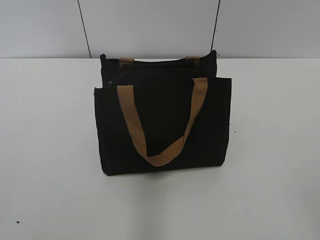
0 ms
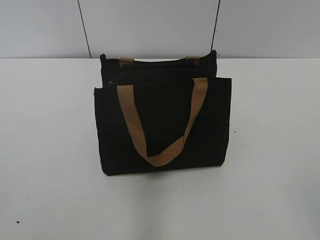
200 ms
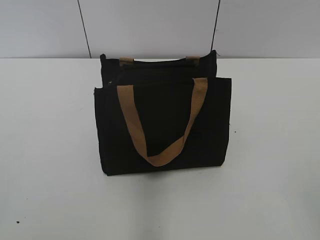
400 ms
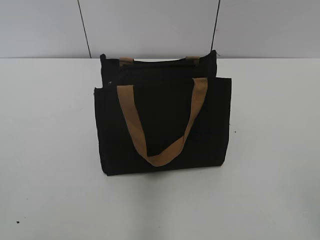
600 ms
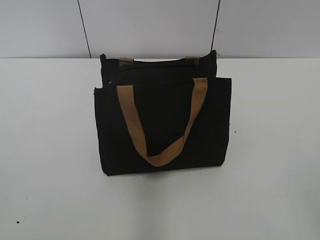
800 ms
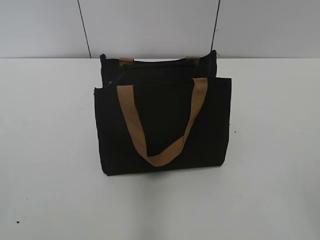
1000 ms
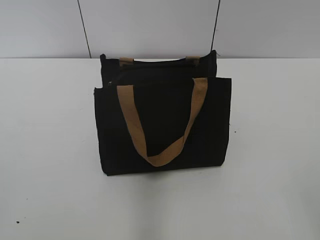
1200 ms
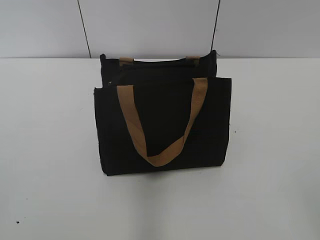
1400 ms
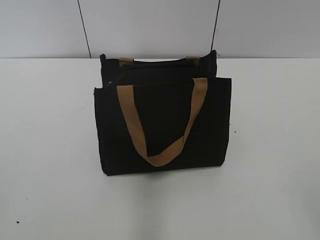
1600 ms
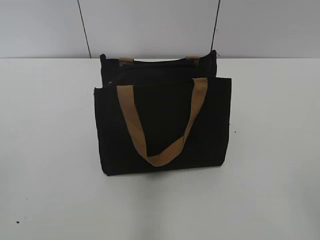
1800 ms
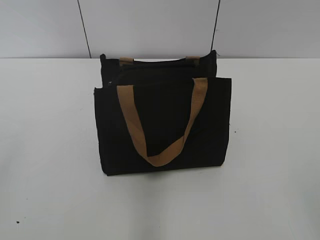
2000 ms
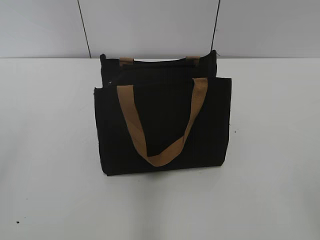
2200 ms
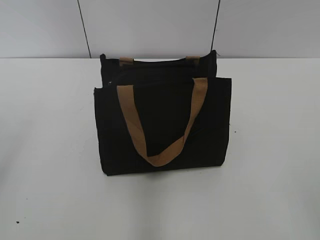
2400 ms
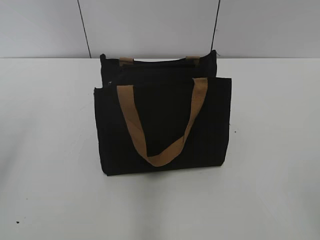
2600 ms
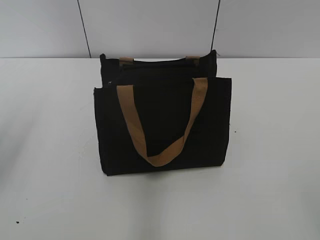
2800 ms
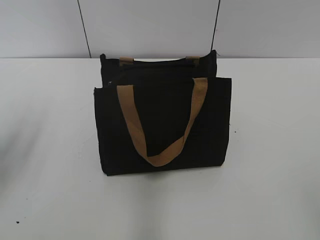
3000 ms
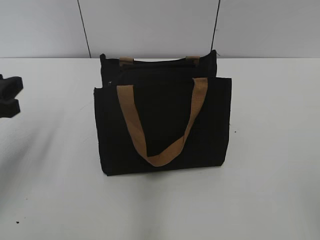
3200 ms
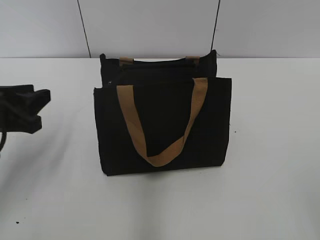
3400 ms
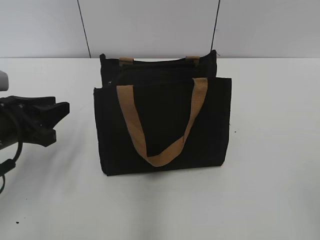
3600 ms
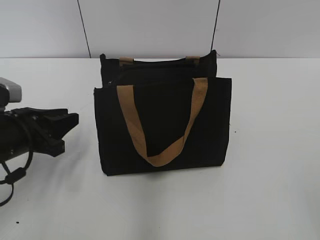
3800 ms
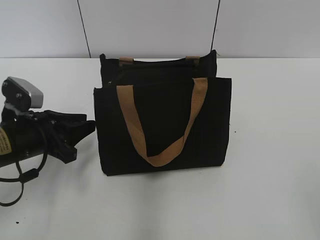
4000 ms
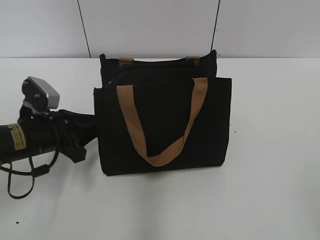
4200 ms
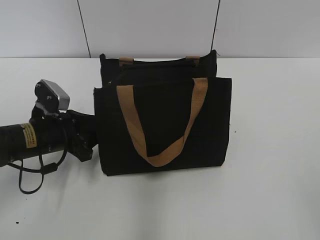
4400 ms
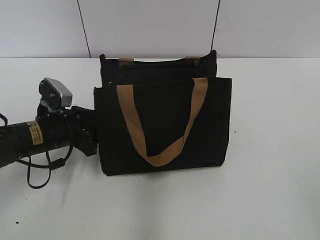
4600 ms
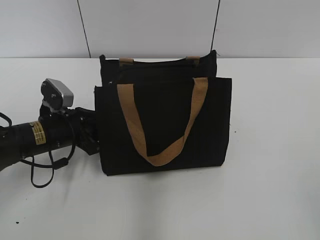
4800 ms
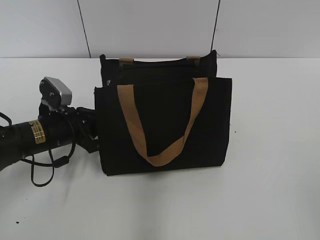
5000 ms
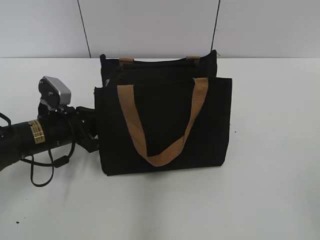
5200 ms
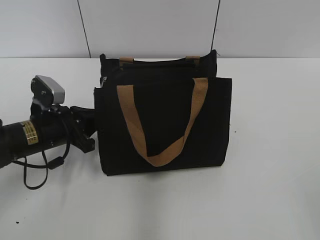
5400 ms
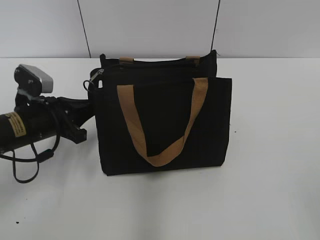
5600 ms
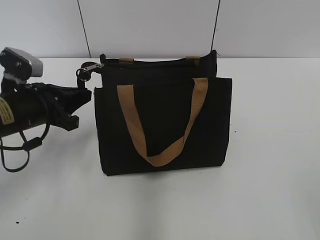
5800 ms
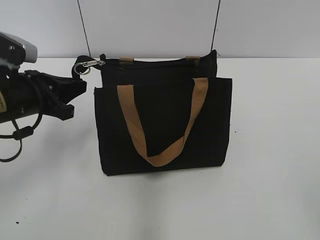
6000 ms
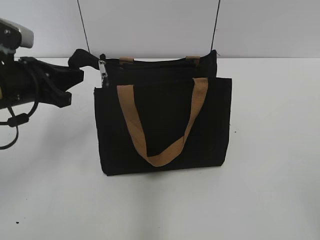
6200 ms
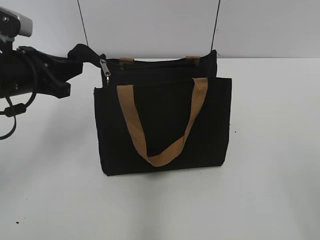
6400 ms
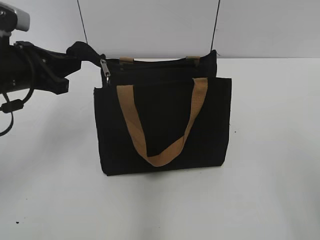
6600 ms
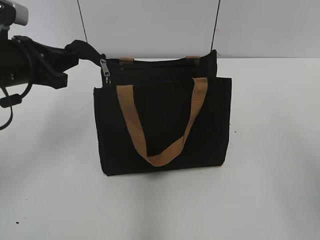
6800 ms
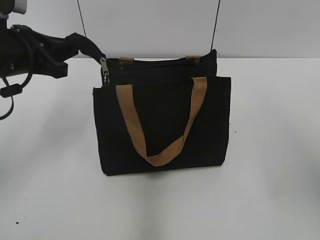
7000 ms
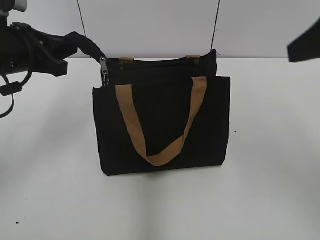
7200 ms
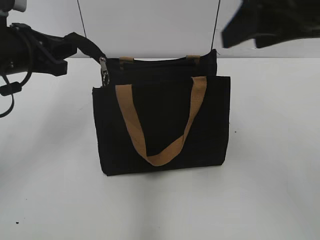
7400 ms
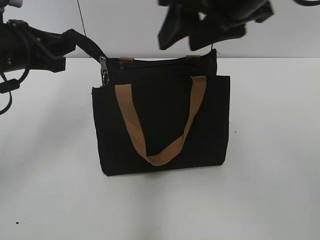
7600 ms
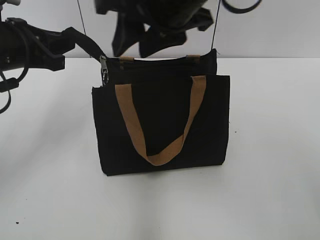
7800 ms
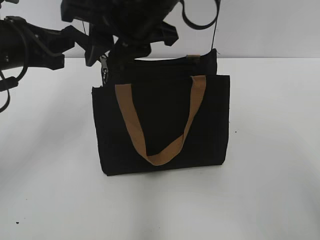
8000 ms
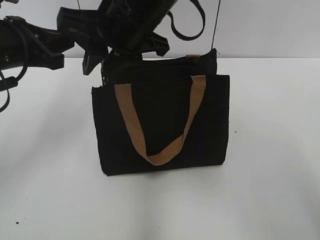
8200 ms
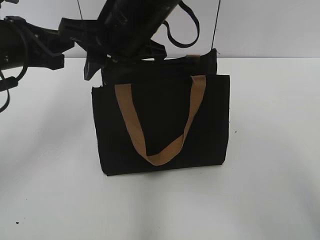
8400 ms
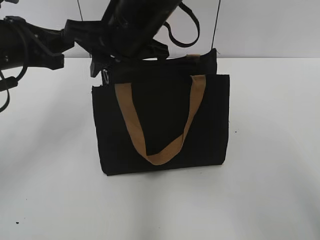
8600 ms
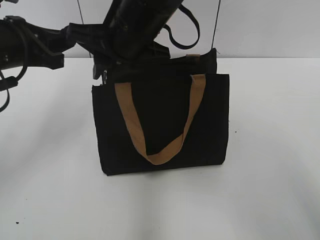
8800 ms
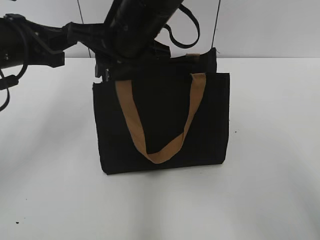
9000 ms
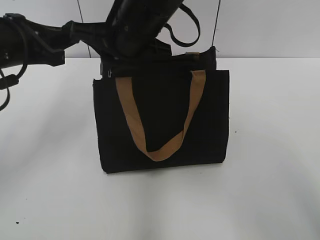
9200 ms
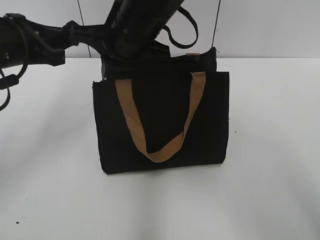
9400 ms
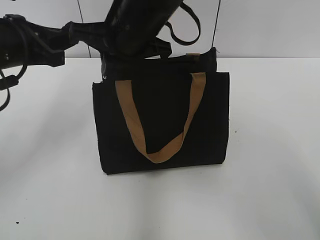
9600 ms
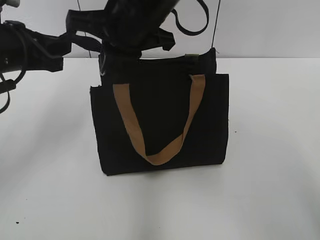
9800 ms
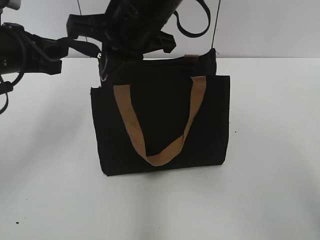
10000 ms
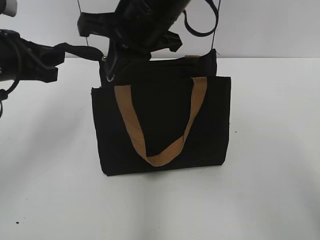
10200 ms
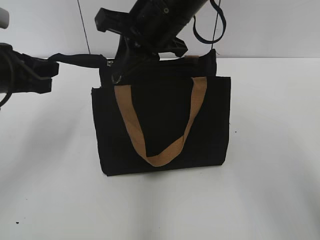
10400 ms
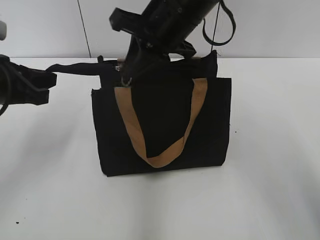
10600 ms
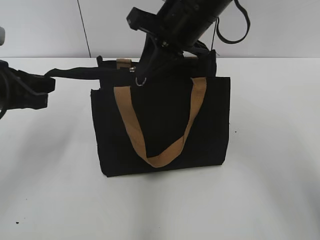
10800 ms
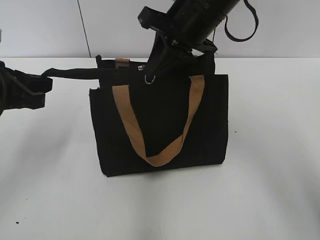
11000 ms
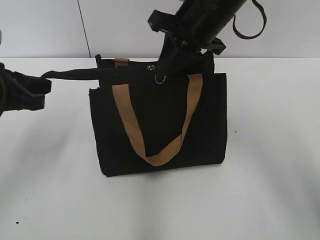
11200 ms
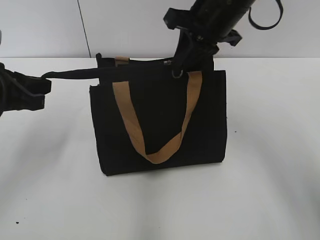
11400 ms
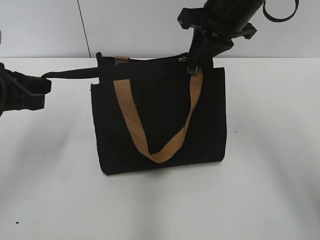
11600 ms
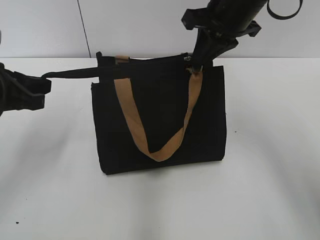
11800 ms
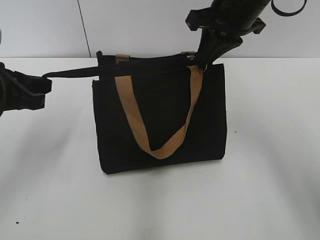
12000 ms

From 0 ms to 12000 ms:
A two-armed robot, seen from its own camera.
From 1600 ms to 3000 ms: The left gripper travels forward by about 20 cm, and opens, then closes again.
From 3000 ms to 4400 ms: The left gripper goes roughly 20 cm downward, to the right and forward.
From 4400 ms to 6000 ms: The left gripper travels upward by some 10 cm, and closes.
From 6000 ms to 7600 ms: The left gripper is displaced upward by about 5 cm, while the right gripper travels forward and to the left by approximately 35 cm.
From 7600 ms to 9000 ms: The right gripper is displaced to the left, downward and forward by roughly 15 cm.
From 9000 ms to 10400 ms: The right gripper closes its fingers.
From 10400 ms to 12000 ms: The right gripper is displaced to the right by roughly 10 cm.

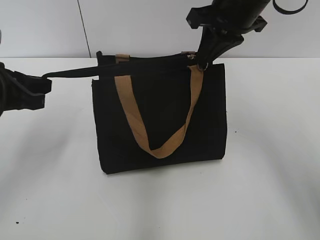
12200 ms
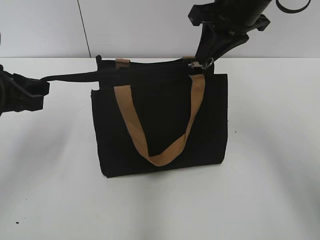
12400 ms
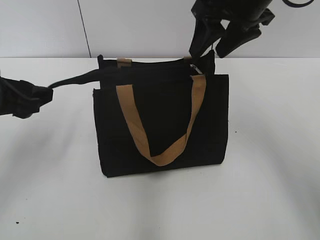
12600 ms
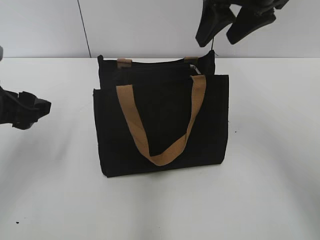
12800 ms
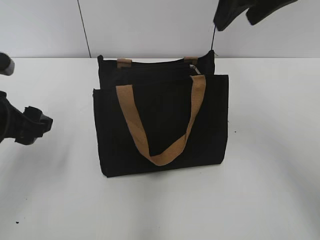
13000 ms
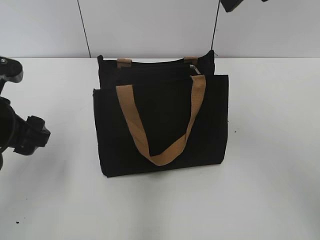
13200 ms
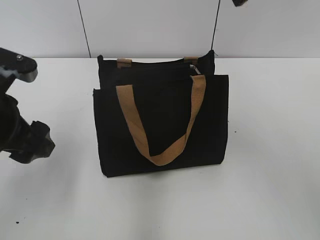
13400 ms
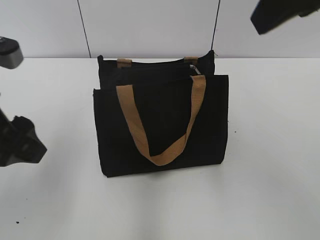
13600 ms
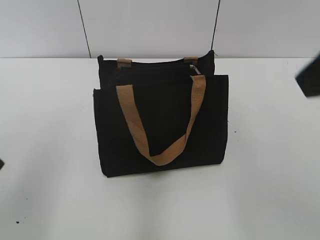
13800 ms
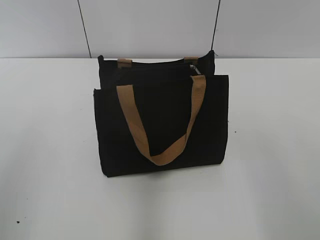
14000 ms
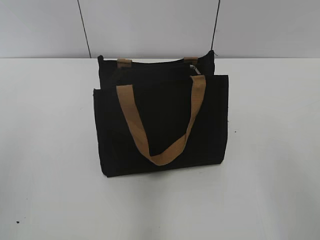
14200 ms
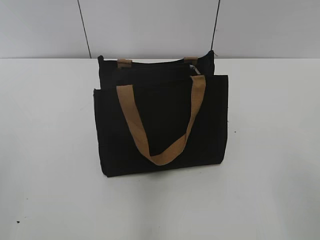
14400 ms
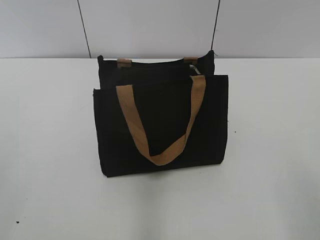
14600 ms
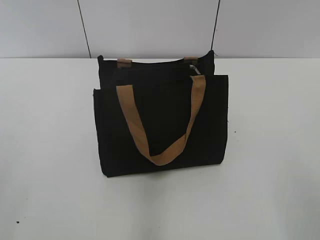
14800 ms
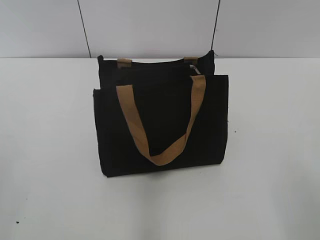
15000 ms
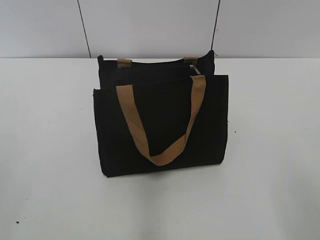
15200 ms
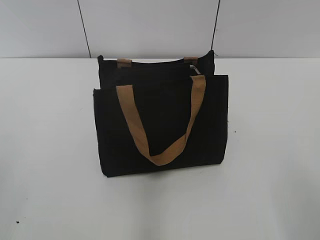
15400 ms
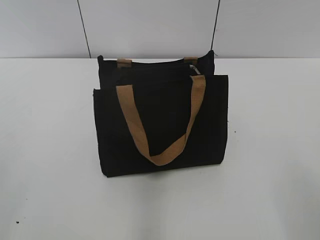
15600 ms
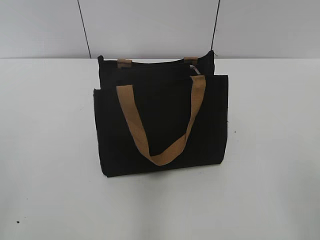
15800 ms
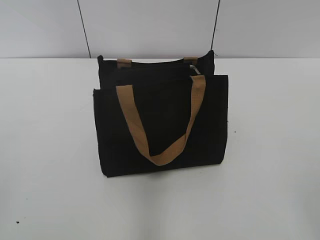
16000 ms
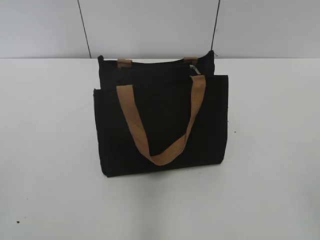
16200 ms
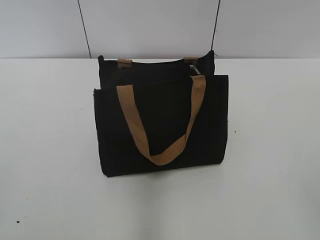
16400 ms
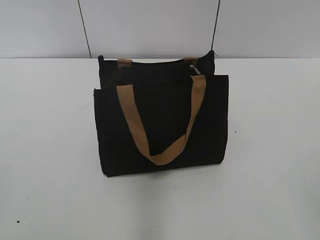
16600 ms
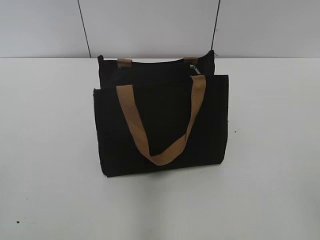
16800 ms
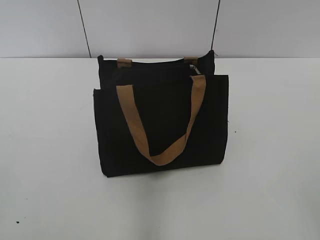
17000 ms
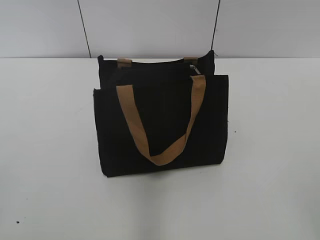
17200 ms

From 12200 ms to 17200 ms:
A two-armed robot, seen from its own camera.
From 12200 ms to 13800 ms: The left gripper heads backward and upward, covering some 15 cm, and opens; the right gripper moves backward, approximately 25 cm, and opens.
From 13800 ms to 15600 ms: The right gripper is displaced downward, backward and to the right by some 20 cm.

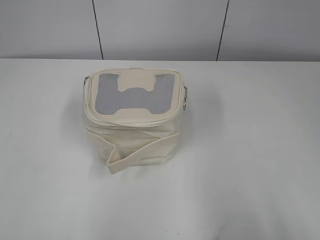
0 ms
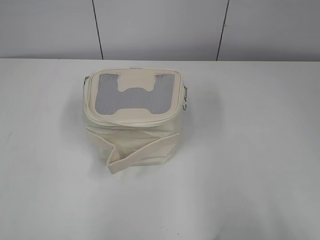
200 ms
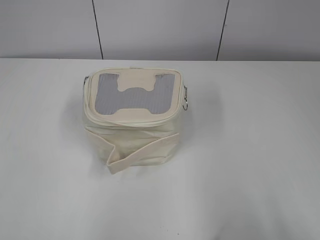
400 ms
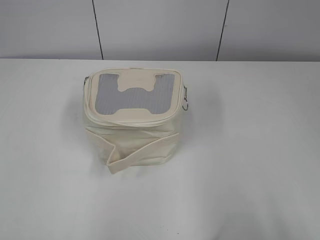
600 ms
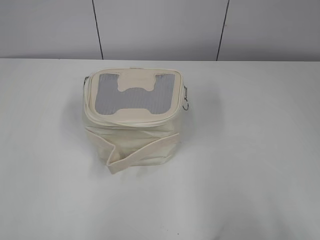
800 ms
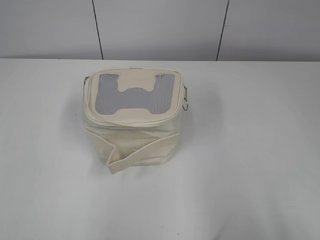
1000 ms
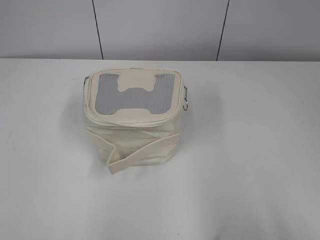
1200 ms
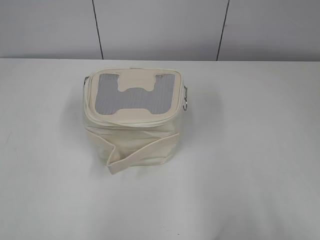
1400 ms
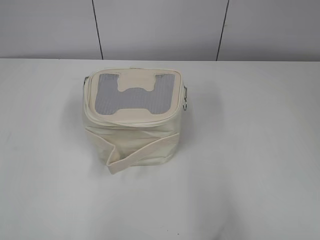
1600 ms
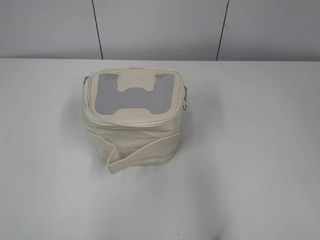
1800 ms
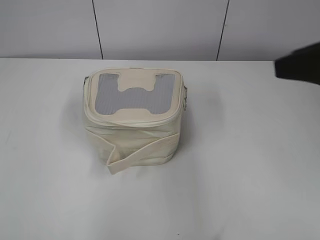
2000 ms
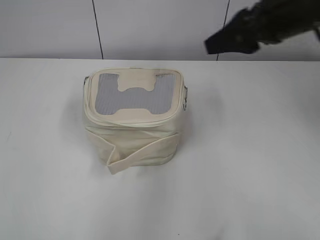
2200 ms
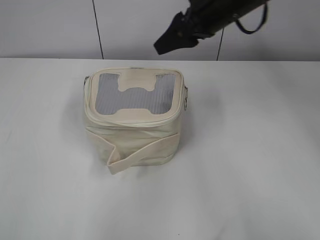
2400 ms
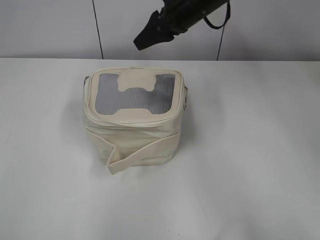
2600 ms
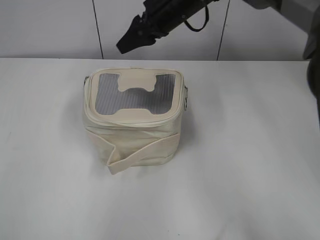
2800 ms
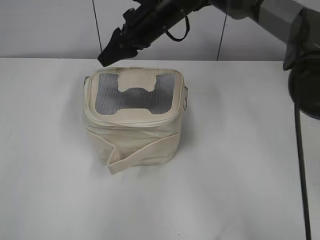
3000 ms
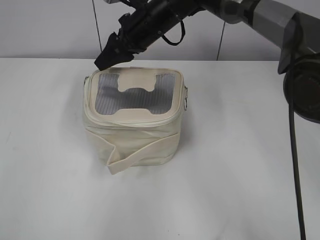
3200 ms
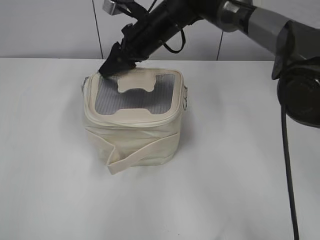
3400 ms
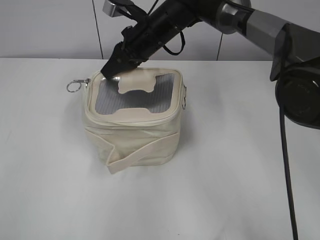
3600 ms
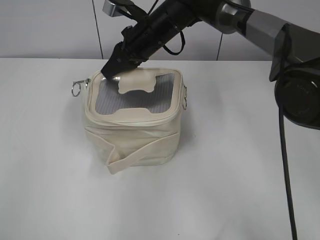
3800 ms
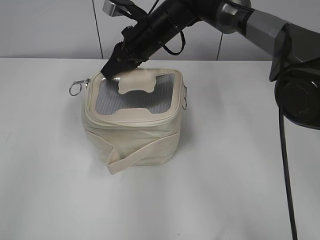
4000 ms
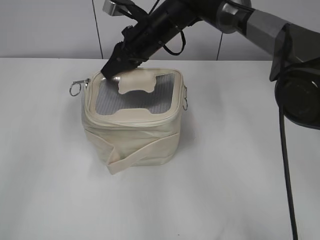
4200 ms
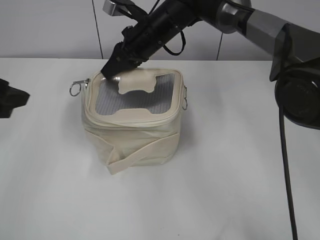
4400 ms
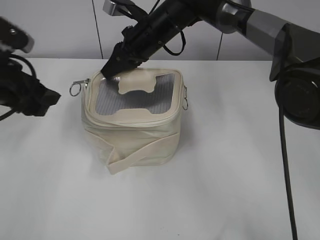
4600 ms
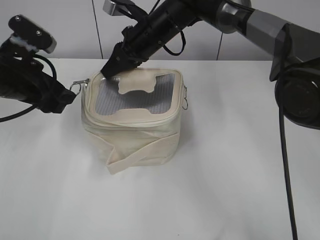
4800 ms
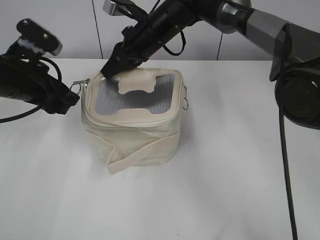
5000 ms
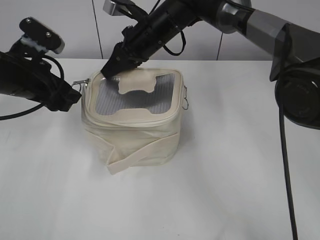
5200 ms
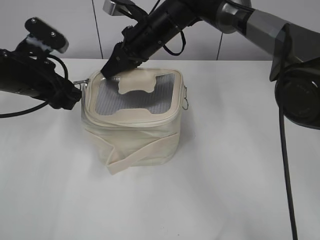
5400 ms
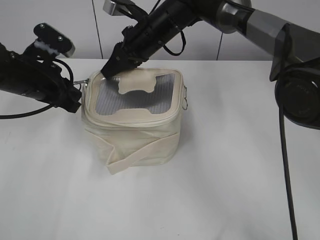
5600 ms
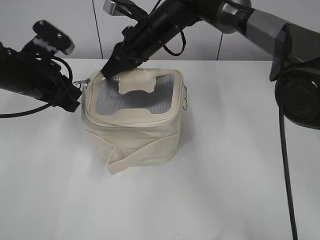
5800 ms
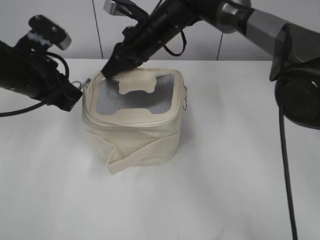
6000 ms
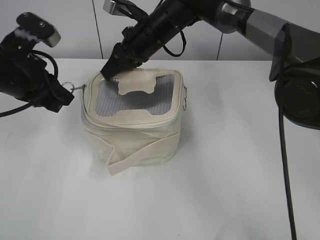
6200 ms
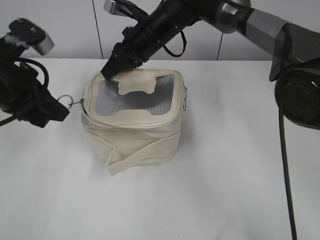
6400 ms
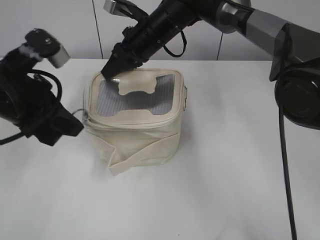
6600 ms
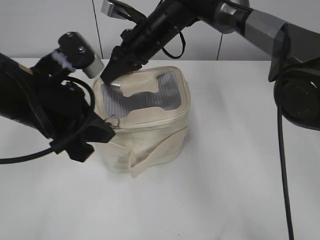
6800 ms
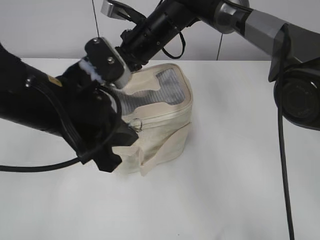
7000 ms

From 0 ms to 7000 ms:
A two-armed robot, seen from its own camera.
From 1400 ms to 2800 ms: The right gripper travels forward and to the left by about 50 cm.
From 2800 ms to 4200 ms: The right gripper goes approximately 5 cm to the left and downward, and closes up, while the left gripper moves forward, roughly 15 cm.
From 4200 ms to 5600 ms: The left gripper goes some 20 cm forward, downward and to the right, and closes.
From 5600 ms to 7000 ms: The left gripper is displaced backward and to the right by roughly 15 cm, and closes up.
